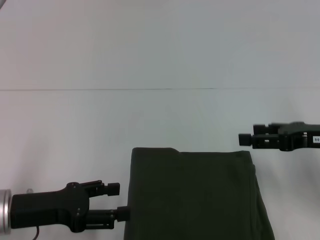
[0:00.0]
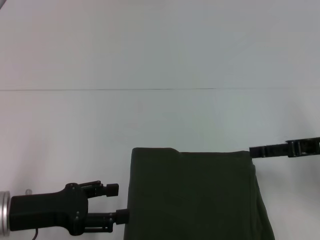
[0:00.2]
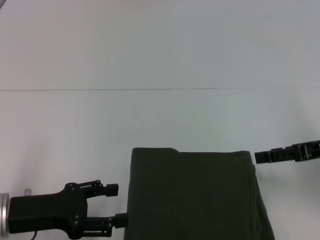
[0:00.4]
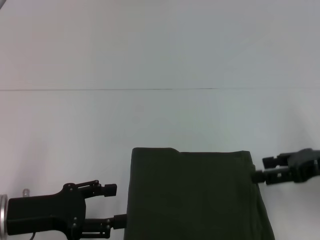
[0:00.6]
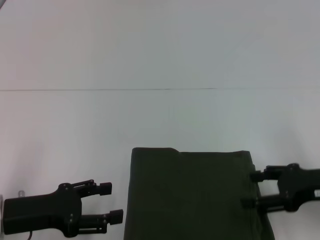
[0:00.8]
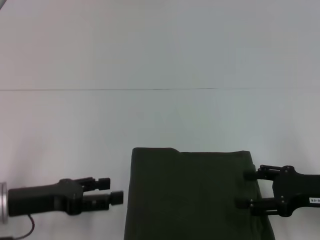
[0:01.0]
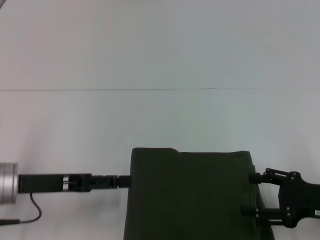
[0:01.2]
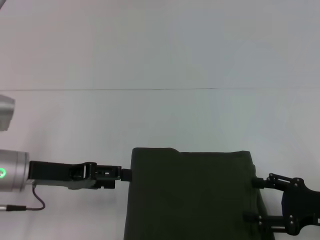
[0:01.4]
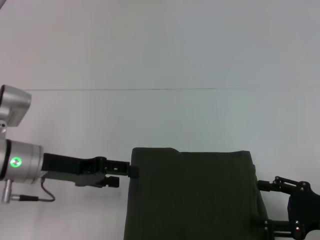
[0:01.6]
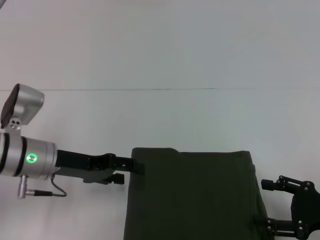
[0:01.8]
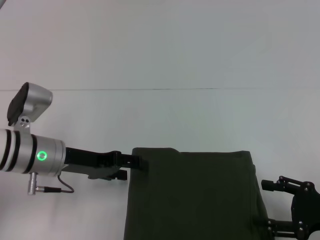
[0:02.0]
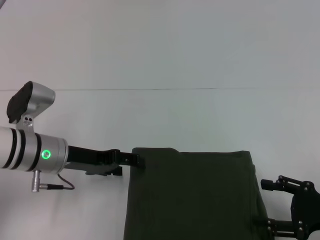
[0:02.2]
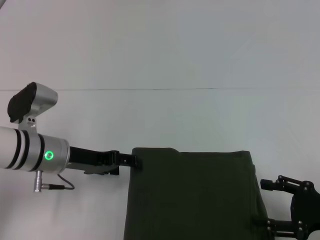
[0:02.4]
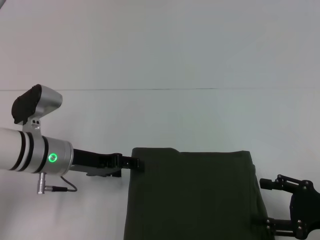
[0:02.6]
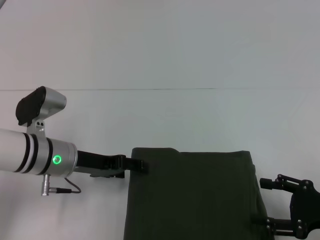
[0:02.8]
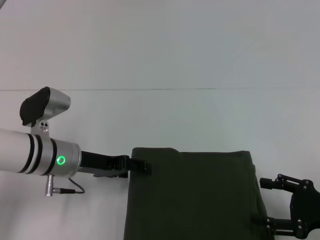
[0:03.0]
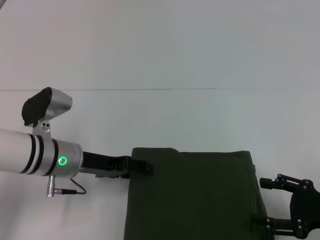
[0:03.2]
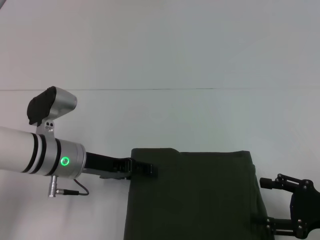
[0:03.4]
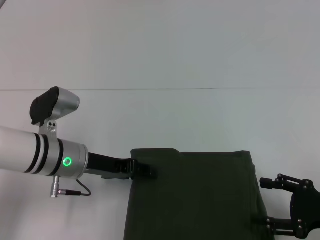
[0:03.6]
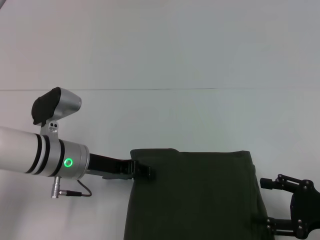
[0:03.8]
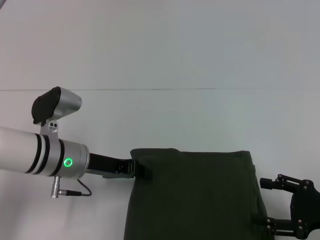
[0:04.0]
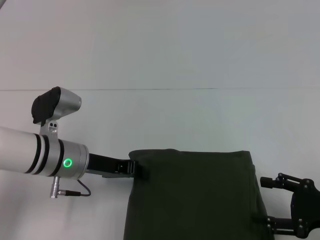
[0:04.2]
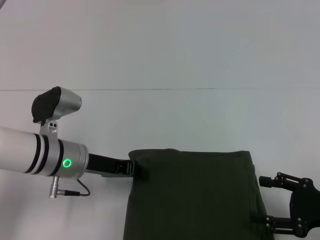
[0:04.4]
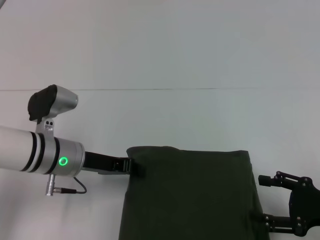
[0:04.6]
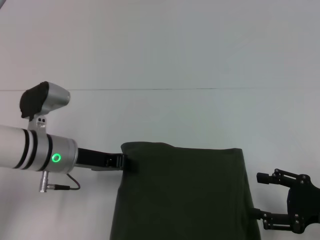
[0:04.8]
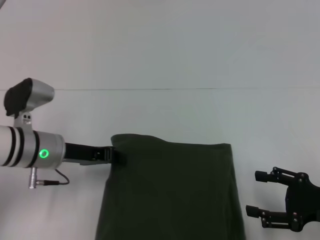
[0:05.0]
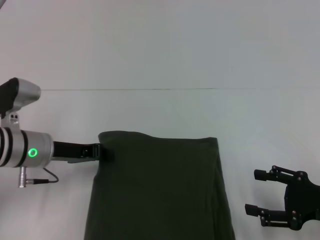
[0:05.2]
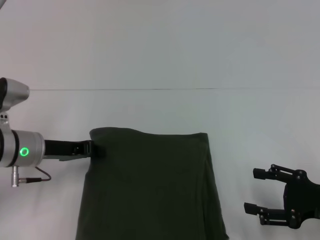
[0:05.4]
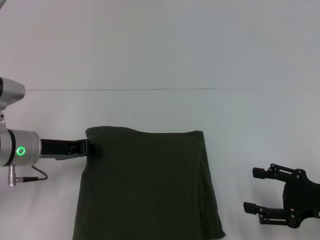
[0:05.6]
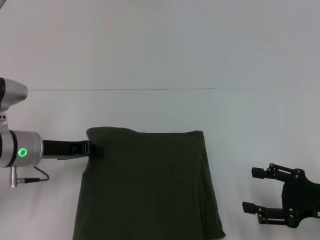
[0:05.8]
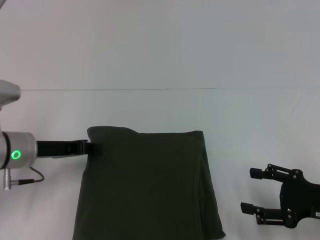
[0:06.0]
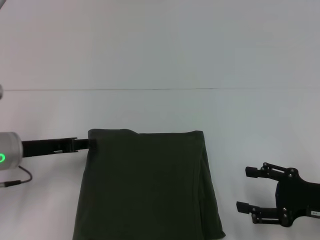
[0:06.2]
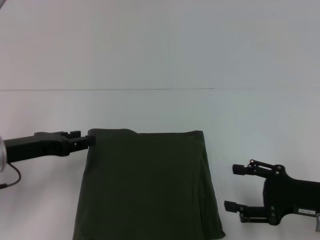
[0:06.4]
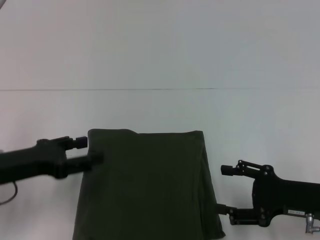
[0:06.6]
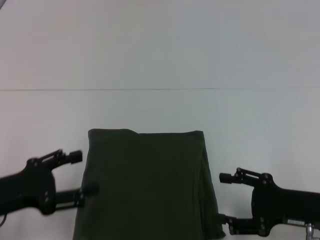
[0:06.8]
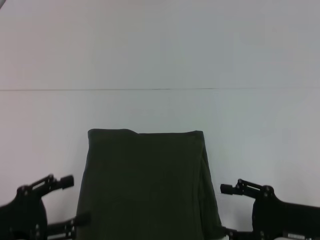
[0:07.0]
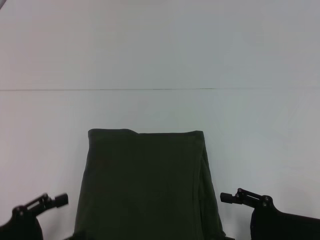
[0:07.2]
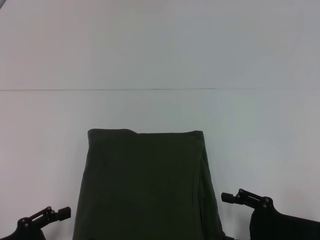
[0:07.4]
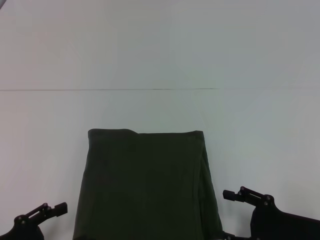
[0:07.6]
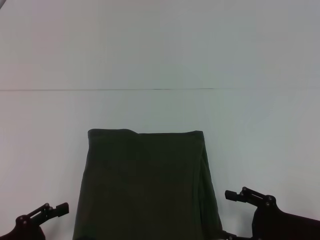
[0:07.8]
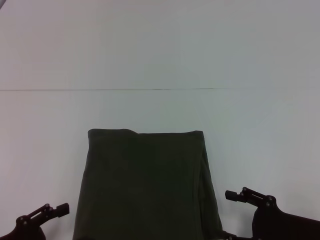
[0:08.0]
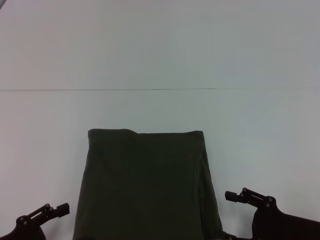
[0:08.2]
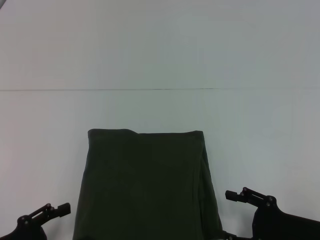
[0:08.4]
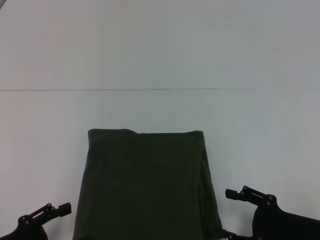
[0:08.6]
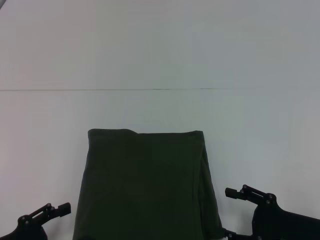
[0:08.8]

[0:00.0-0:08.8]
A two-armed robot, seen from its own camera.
0:00.0 to 0:01.4: The left gripper travels forward by some 5 cm, while the right gripper is displaced downward and backward by approximately 10 cm.
0:01.4 to 0:03.0: The left gripper travels to the right by approximately 5 cm.
0:03.0 to 0:04.4: The left gripper closes.
0:04.4 to 0:05.8: The left gripper moves to the left, approximately 5 cm.
0:05.8 to 0:07.4: The right gripper ends up approximately 5 cm from where it was; the left gripper goes about 20 cm backward, and opens its fingers.
0:07.4 to 0:08.8: The two grippers keep their place.

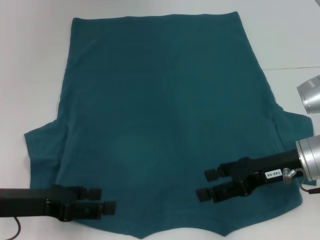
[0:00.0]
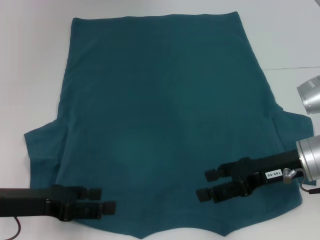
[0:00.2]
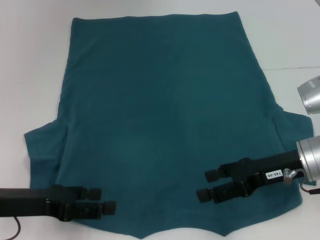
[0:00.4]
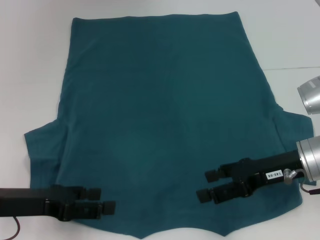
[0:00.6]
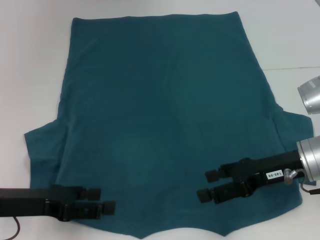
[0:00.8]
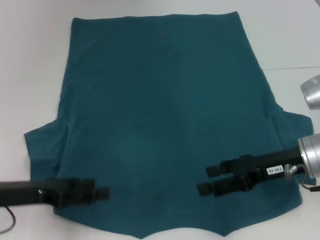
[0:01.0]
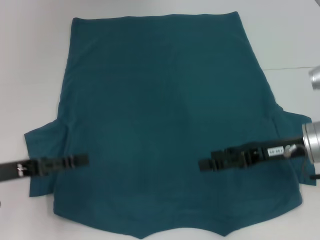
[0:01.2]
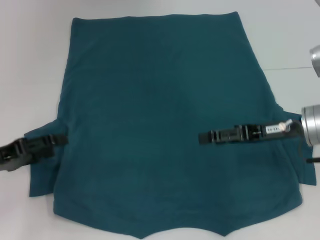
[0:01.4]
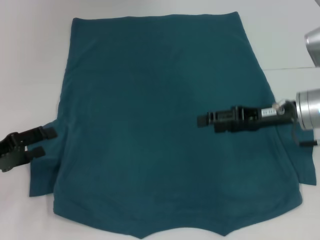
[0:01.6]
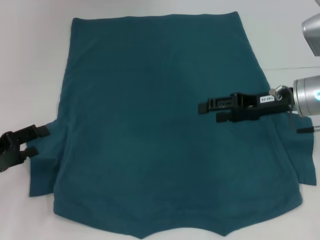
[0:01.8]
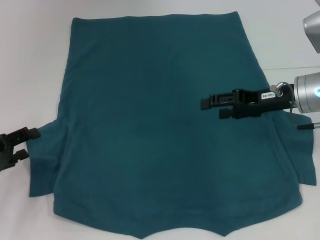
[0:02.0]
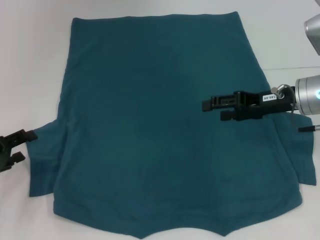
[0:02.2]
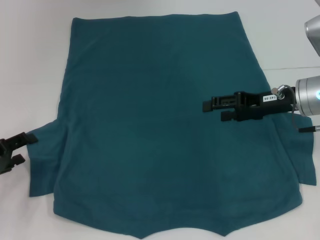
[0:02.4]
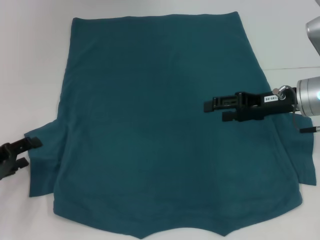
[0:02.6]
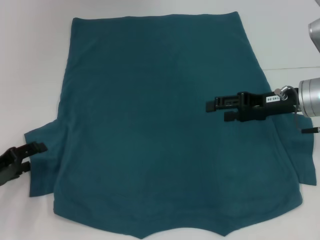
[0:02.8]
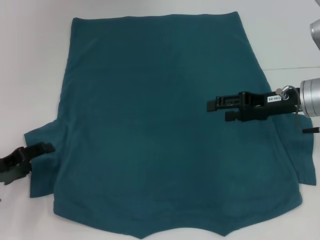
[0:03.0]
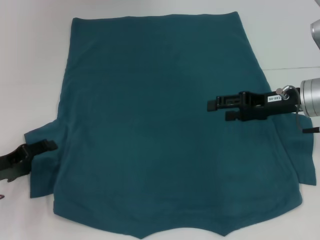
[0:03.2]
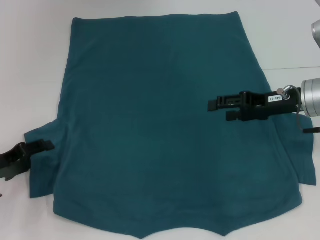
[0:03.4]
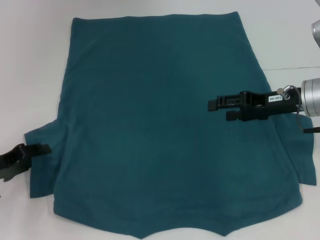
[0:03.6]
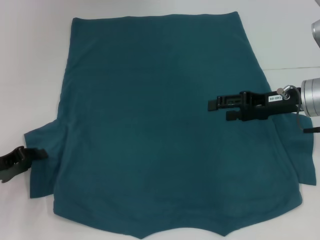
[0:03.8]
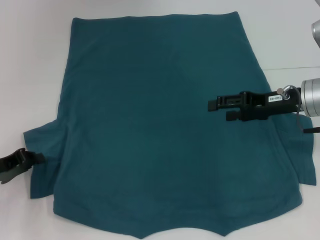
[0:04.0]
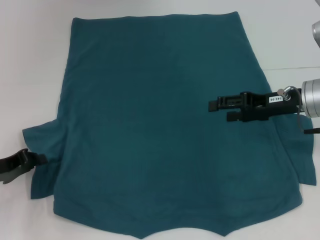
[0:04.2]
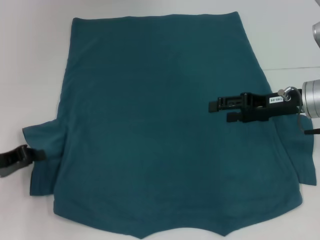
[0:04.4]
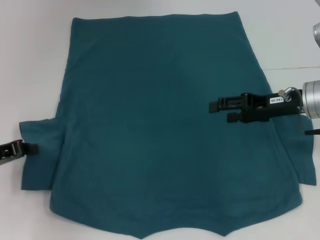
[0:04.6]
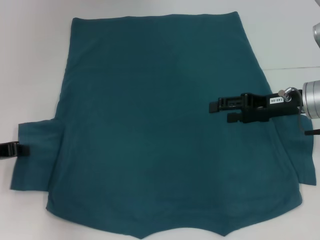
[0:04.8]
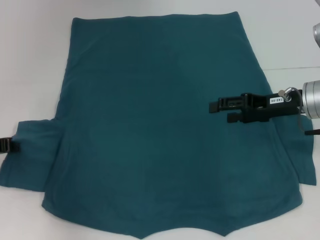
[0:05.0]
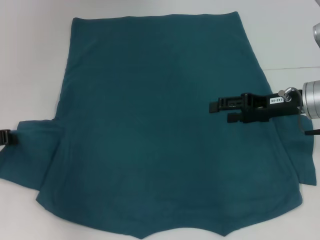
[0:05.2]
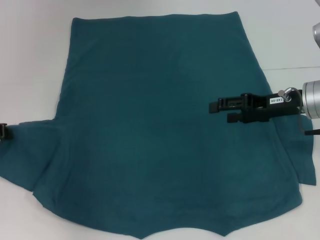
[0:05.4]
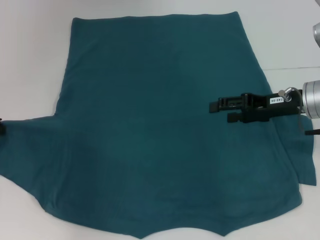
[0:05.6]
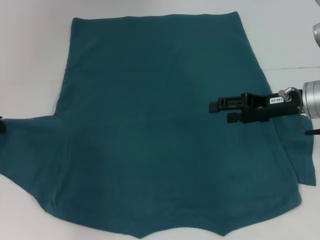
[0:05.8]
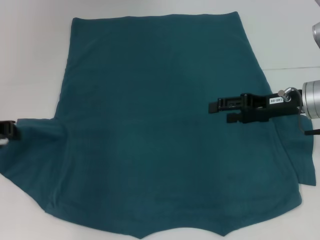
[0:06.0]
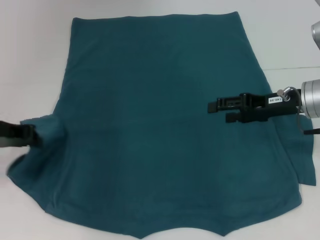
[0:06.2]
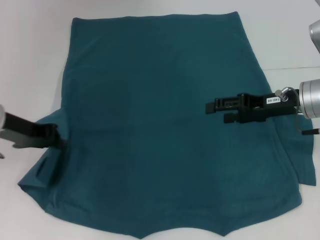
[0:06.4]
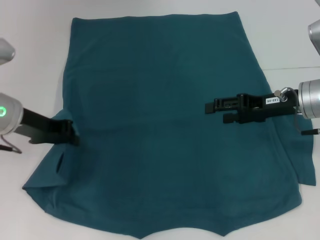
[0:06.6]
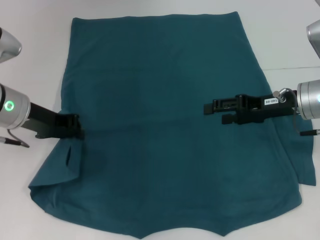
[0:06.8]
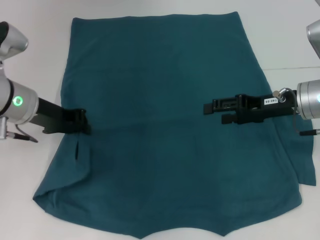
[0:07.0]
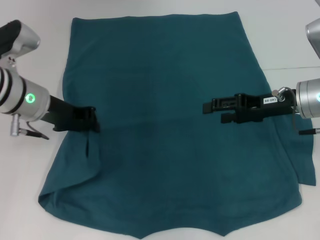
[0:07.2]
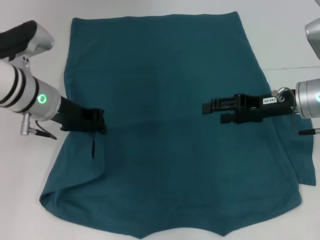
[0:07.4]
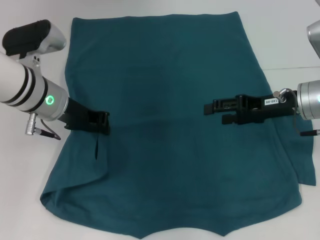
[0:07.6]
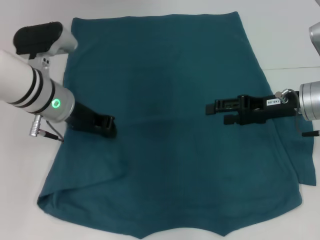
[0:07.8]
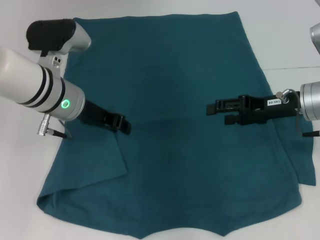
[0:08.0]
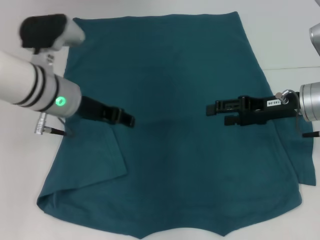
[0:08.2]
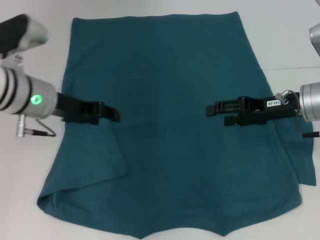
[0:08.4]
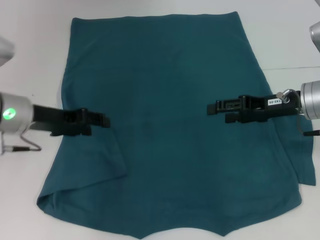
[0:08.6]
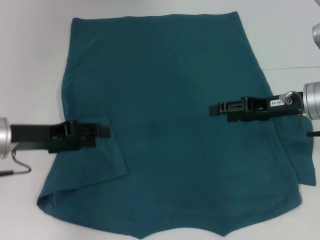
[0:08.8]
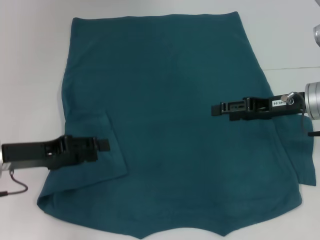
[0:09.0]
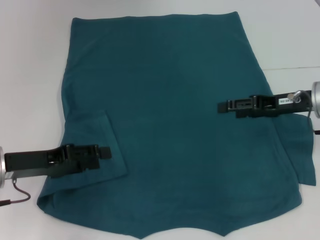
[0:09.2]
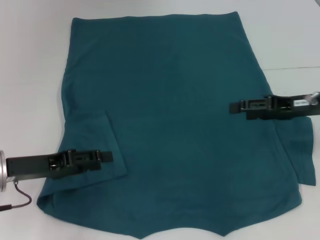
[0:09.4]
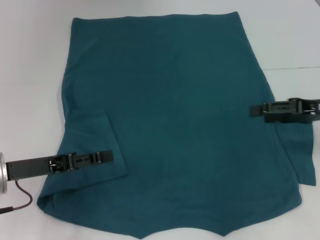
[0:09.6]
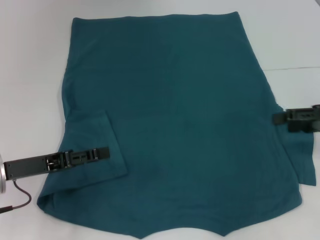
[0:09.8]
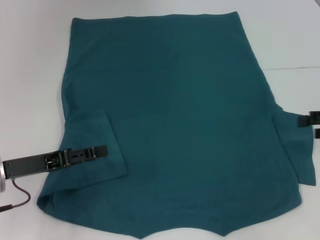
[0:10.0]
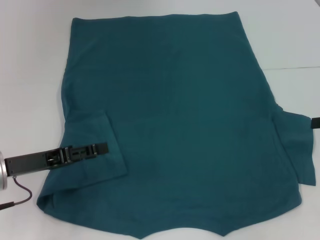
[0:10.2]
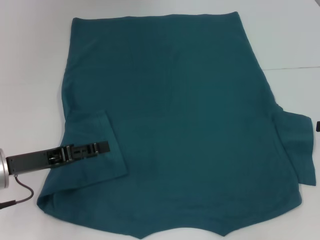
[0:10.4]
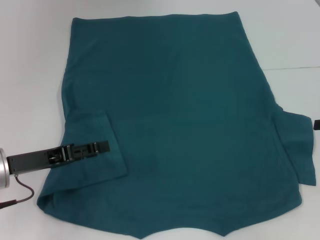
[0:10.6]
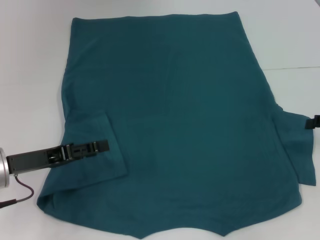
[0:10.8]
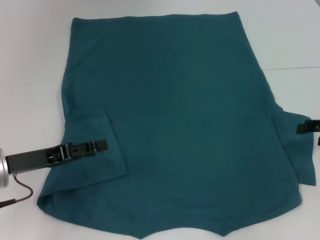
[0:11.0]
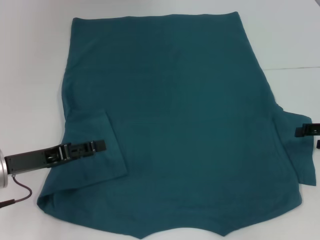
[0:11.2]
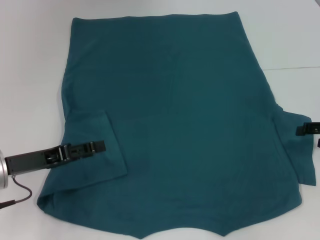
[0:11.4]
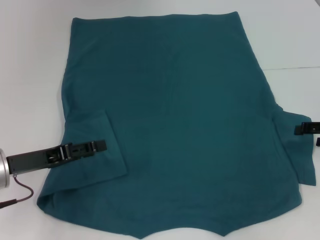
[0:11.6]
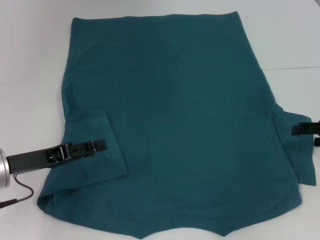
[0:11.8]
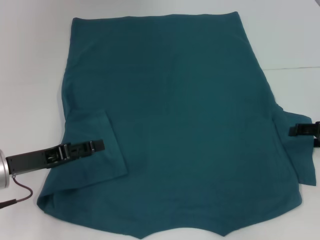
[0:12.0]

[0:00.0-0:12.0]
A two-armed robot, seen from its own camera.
Step, 0:00.0 to 0:08.0: Fold the bottom left sleeve with your left hand.
0:00.0 to 0:01.6: The left gripper heads to the left, covering about 5 cm, while the right gripper travels forward by roughly 5 cm.
0:01.6 to 0:03.0: The grippers make only small movements.
0:03.0 to 0:04.4: The left gripper closes its fingers.
0:04.4 to 0:06.0: The left gripper travels upward and forward by roughly 10 cm.
0:06.0 to 0:07.6: The left gripper is displaced to the right by roughly 15 cm.
0:07.6 to 0:09.0: The left gripper is displaced backward and to the left by about 15 cm, and opens.
0:09.0 to 0:10.4: The right gripper moves to the right and backward, about 15 cm.
0:10.4 to 0:12.0: The right gripper ends up about 5 cm from where it was.

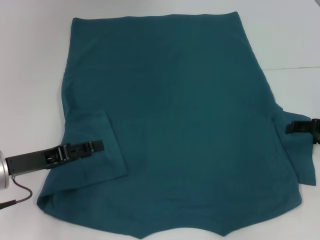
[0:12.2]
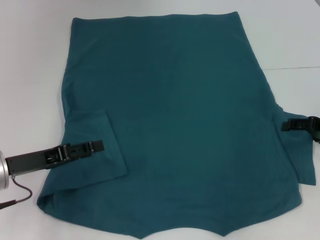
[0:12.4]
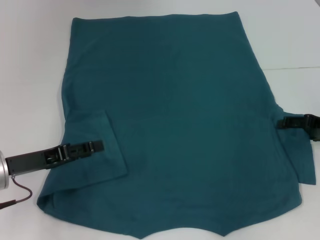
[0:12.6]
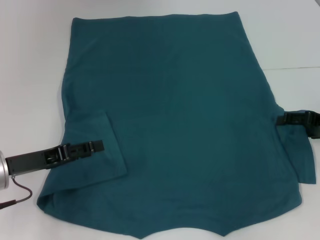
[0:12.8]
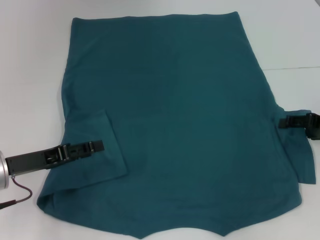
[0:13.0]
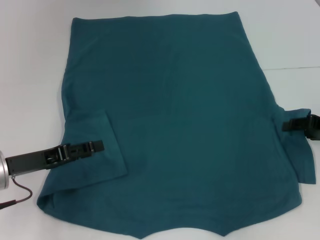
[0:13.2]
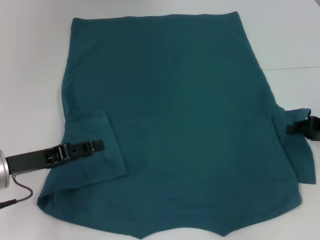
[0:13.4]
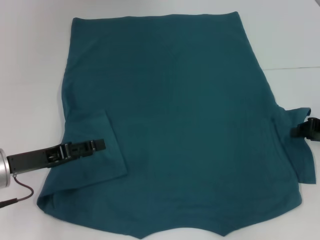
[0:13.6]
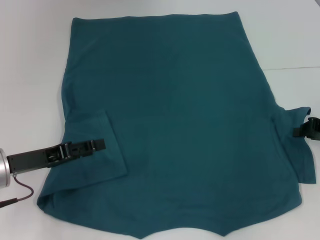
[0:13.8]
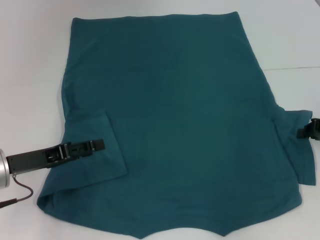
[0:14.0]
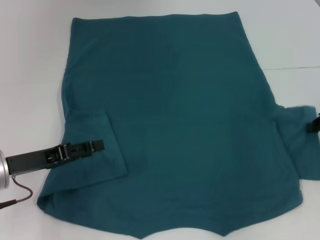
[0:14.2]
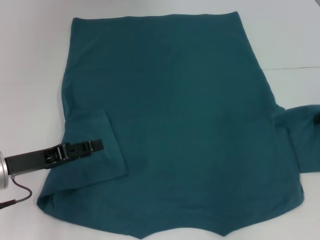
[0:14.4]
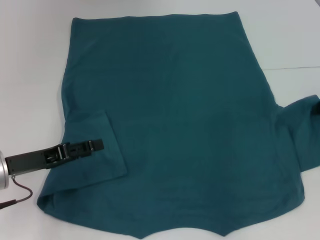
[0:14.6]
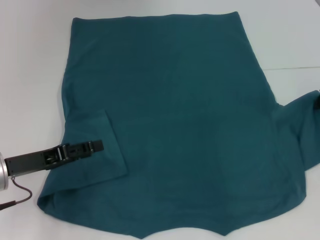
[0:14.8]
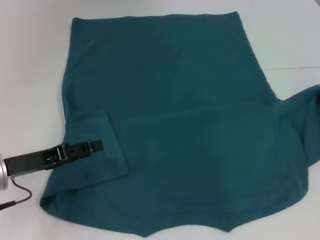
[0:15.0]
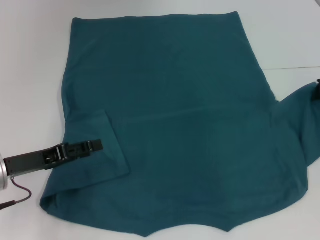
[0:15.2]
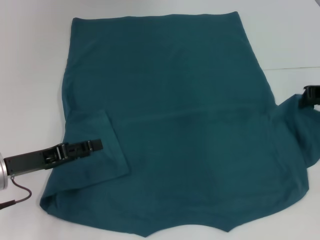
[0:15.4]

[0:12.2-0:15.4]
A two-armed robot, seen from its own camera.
0:12.2 to 0:13.8: The right gripper closes its fingers.
0:13.8 to 0:15.4: The right gripper heads upward and forward, covering some 10 cm.